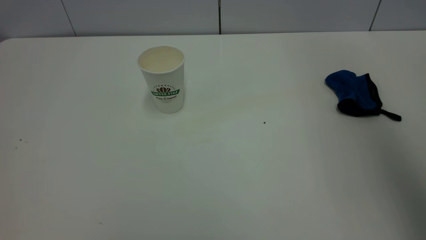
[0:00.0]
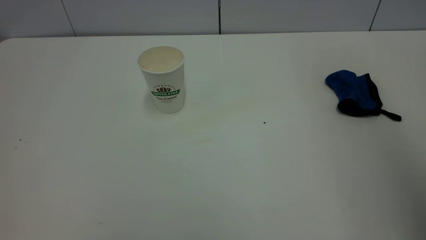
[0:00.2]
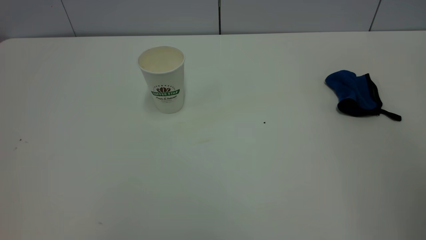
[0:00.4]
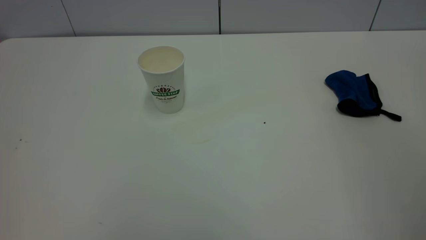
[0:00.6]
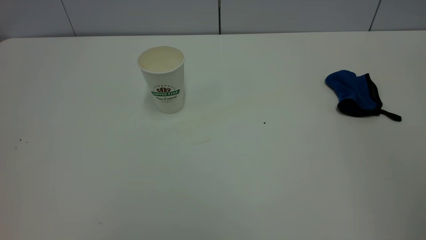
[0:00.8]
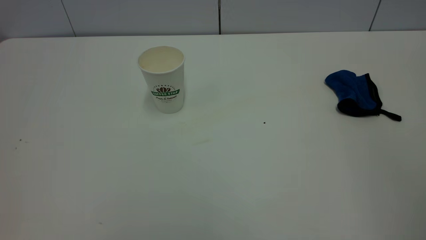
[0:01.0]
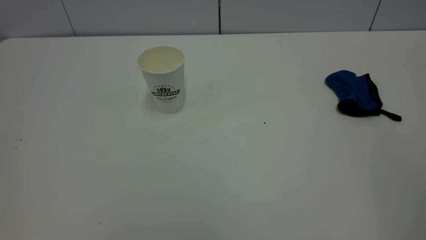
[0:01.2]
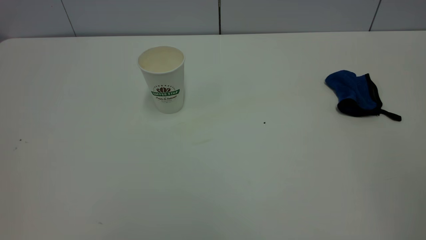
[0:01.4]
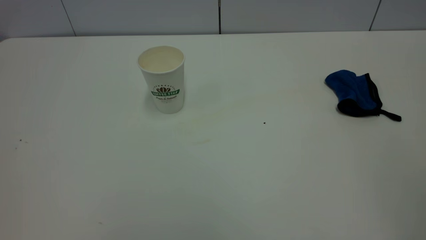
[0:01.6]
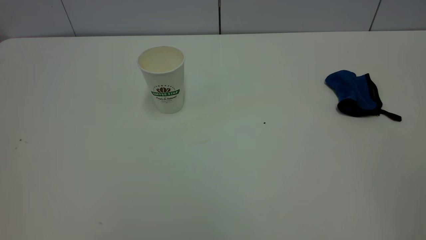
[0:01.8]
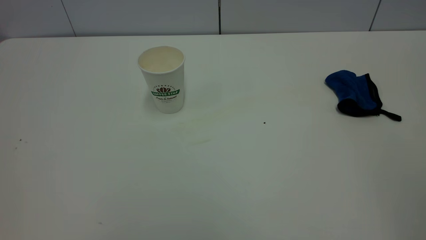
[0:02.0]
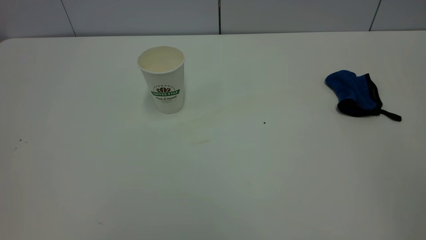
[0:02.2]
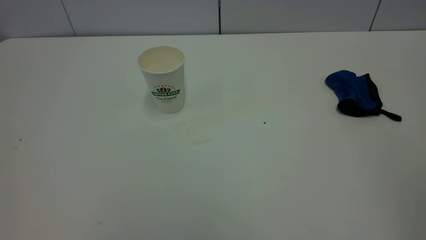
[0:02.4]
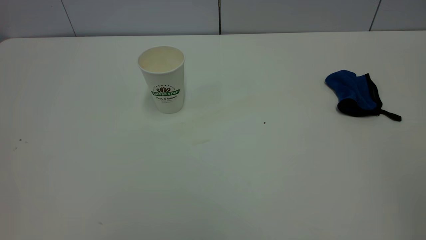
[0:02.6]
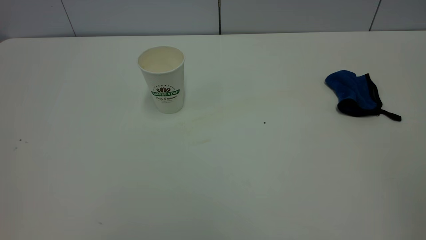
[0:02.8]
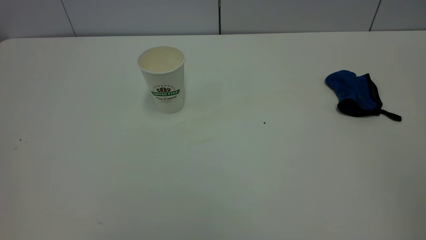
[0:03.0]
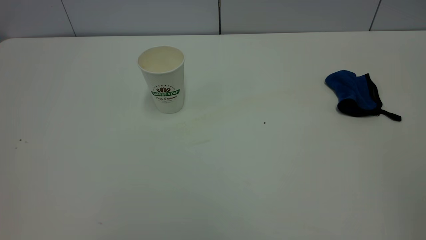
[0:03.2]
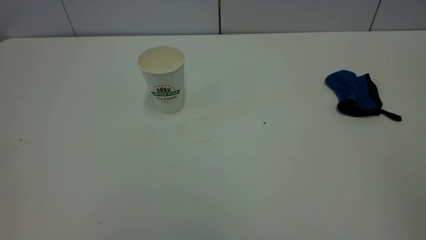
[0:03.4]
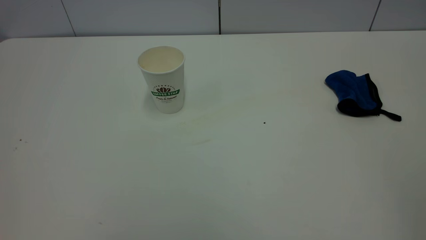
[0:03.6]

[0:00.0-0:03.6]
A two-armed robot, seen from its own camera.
Task of the whole recording: the left gripper pick up the fallen cup and place it upright, the right gripper grasp the blue rag and wipe the tea stain on the table, the right gripper put the blue rag back in its original position.
0:00.0 to 0:01.8: The right gripper travels backward and downward by roughly 30 cm.
